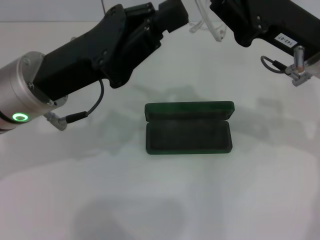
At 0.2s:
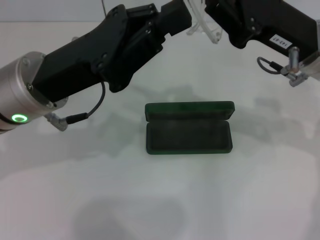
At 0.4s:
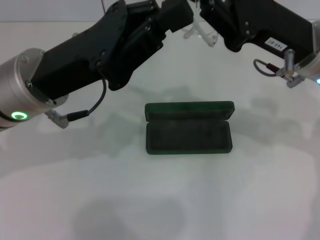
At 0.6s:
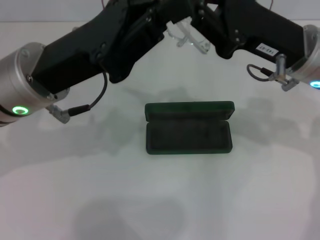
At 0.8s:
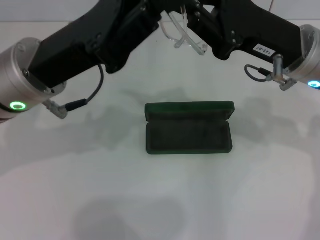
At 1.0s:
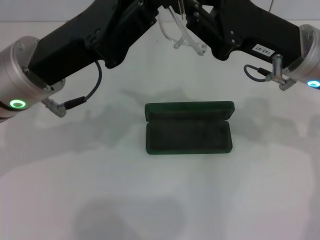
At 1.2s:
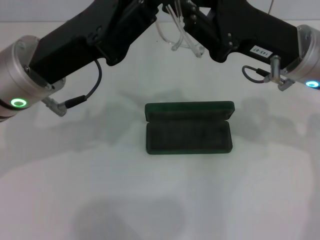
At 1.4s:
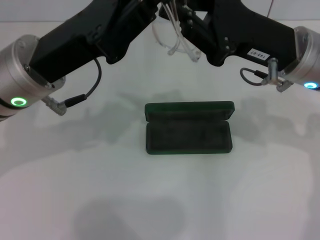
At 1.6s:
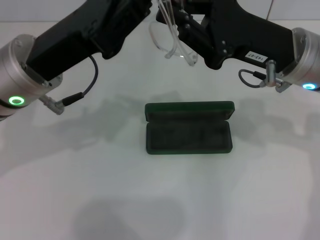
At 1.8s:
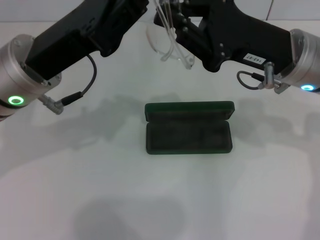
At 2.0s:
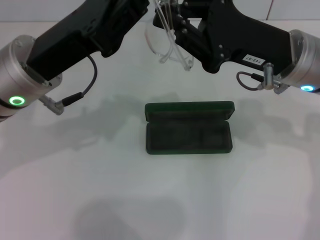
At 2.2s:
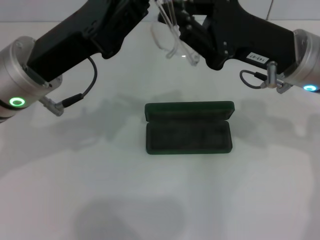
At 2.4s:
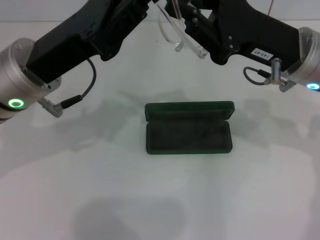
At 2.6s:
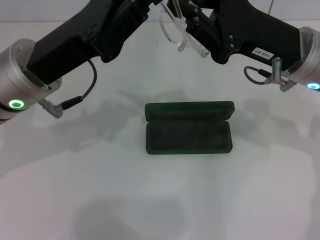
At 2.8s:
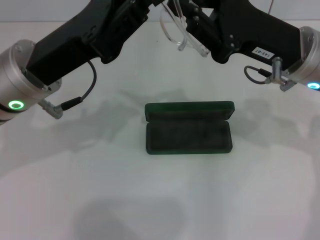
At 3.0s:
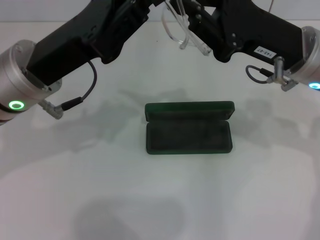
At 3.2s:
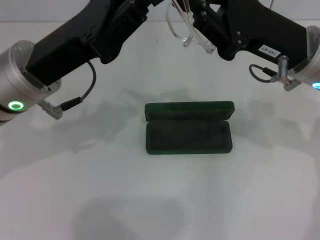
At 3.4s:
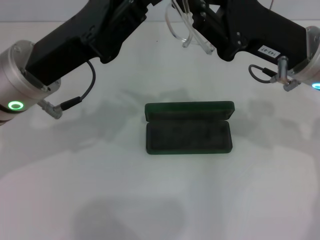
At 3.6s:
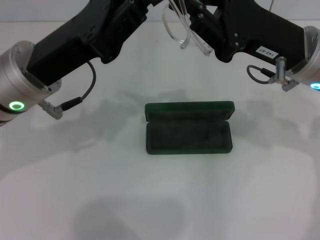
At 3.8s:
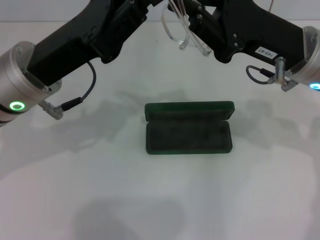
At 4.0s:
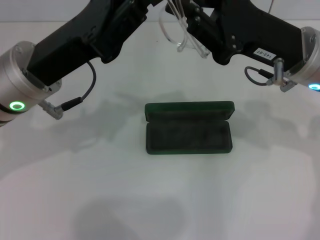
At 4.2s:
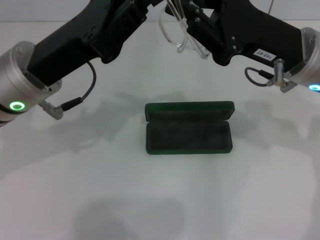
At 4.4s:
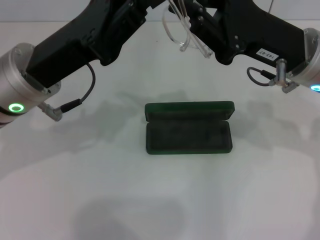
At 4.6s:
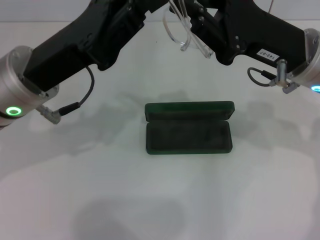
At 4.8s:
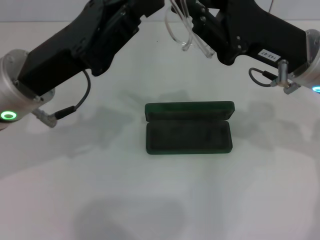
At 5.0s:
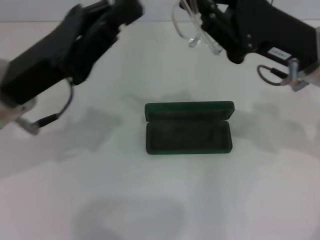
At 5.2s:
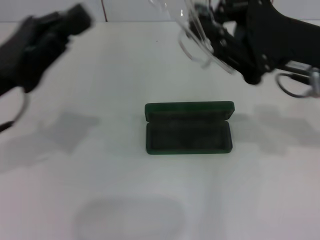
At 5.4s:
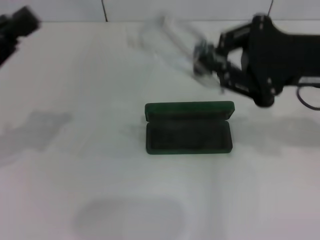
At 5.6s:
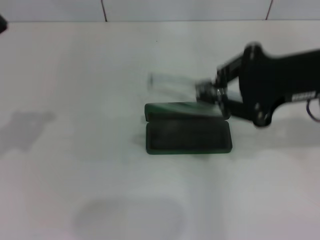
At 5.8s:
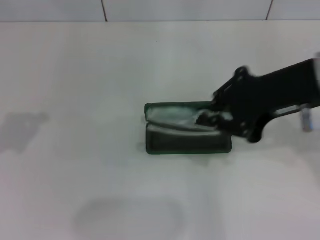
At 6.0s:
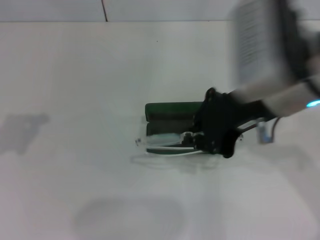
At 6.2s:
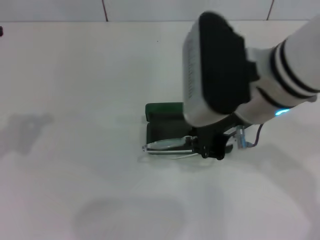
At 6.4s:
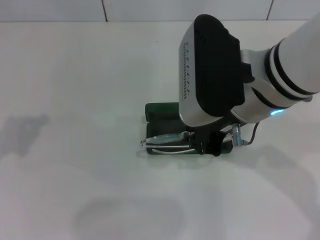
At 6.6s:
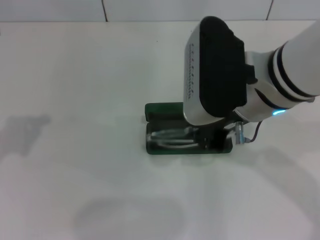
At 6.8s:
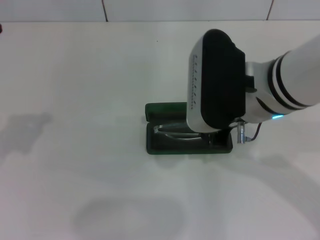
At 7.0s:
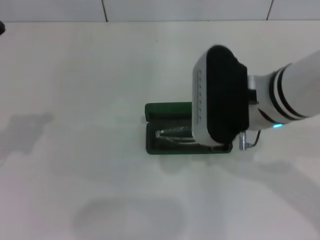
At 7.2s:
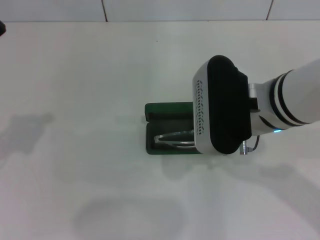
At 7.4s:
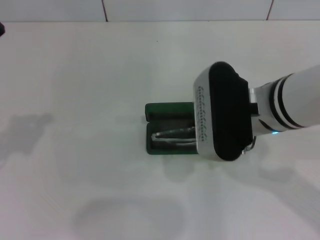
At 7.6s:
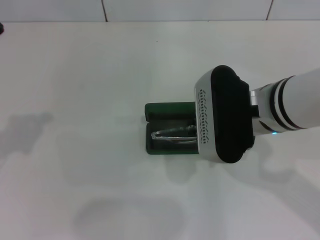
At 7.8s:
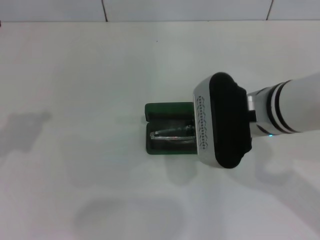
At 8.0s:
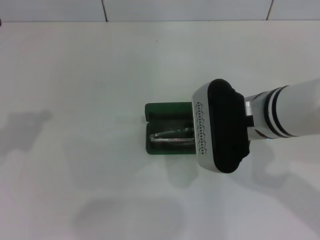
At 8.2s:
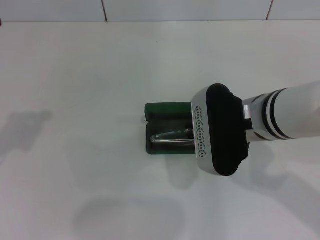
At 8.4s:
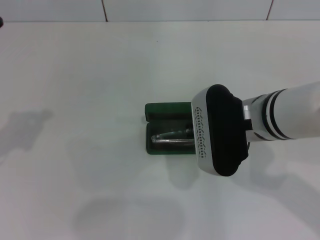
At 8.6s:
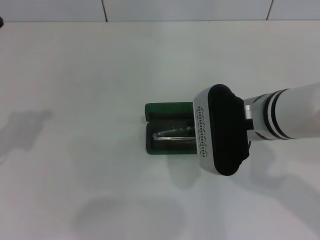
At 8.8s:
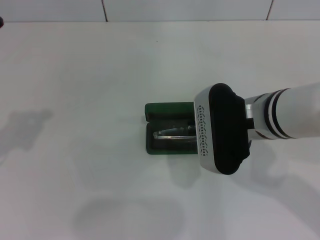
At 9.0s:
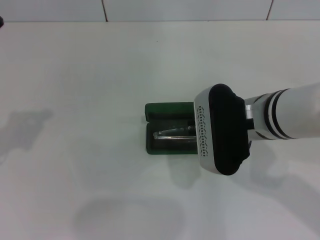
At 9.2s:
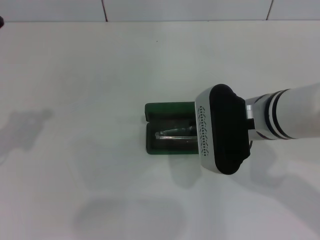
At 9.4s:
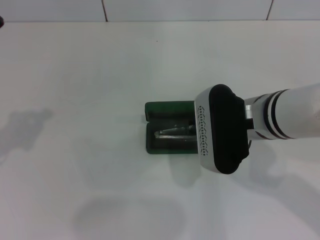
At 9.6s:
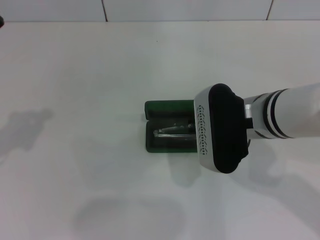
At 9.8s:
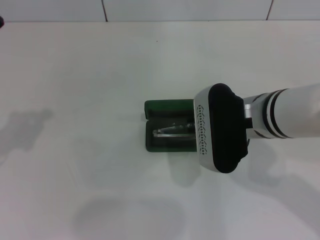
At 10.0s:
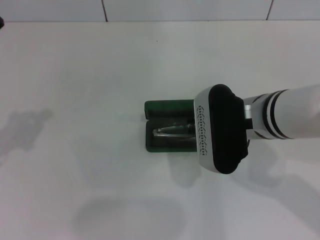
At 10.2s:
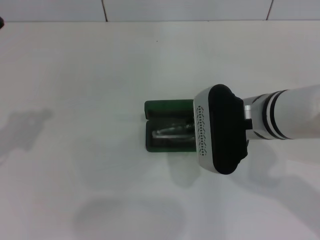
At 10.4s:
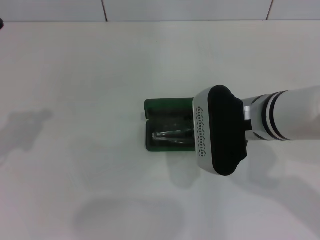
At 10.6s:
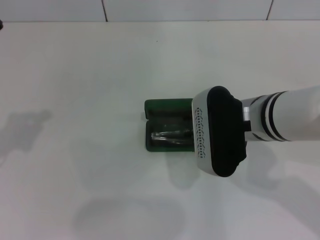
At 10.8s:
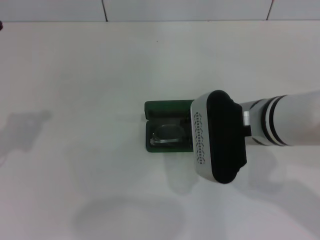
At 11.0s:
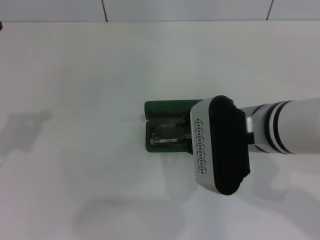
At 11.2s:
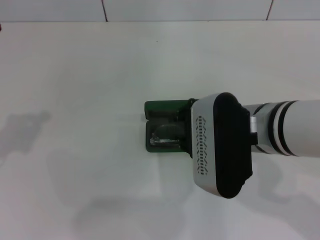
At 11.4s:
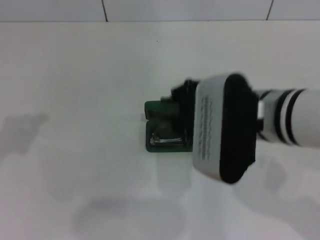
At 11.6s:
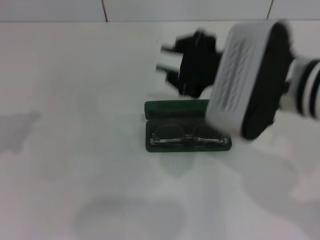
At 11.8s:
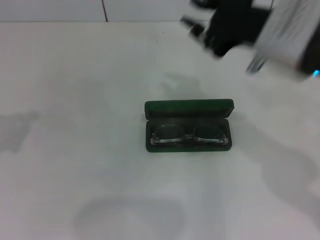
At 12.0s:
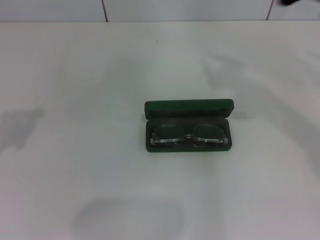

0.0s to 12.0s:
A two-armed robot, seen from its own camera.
Step, 0.0s to 4.0s: Fold the frame with your left hand.
Step, 4.2s to 11.0s: Put the glasses into the case with your right hand.
1.6s to 4.4s: Both grippers stay about where they are.
4.4s to 6.0s: The right gripper travels upward and to the left by roughly 10 cm. The left gripper moves to the left, roughly 15 cm.
6.0s to 7.6s: The right gripper is displaced downward by approximately 5 cm.
7.6s to 9.0s: The grippers move only a little.
9.0s to 10.4s: Both grippers stay put.
10.4s to 12.0s: The right gripper is displaced upward and to the right by about 20 cm.

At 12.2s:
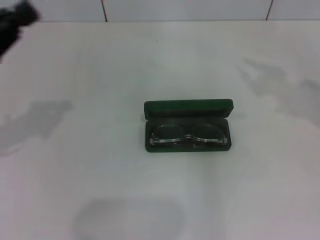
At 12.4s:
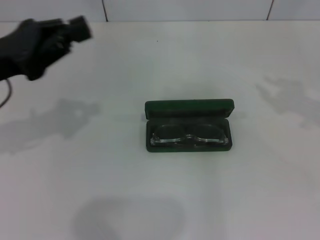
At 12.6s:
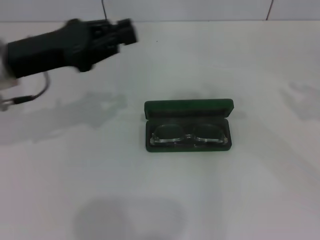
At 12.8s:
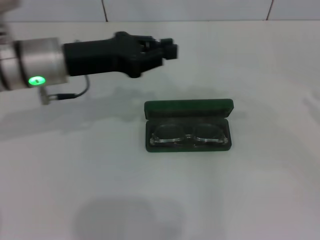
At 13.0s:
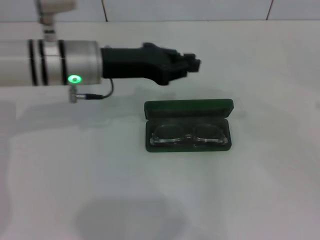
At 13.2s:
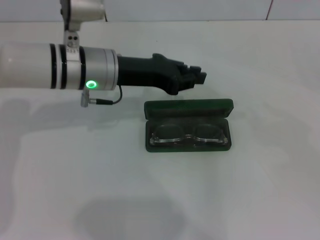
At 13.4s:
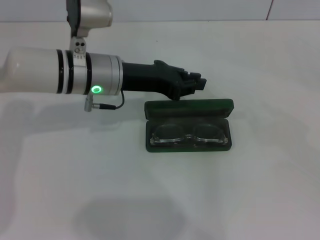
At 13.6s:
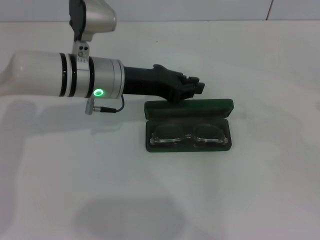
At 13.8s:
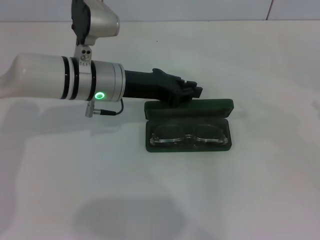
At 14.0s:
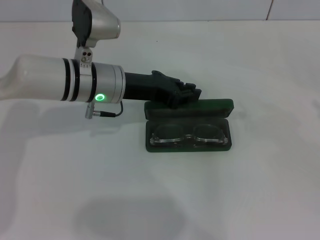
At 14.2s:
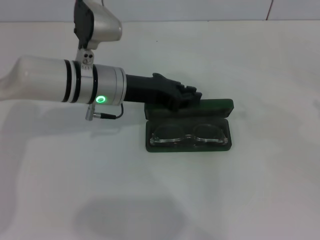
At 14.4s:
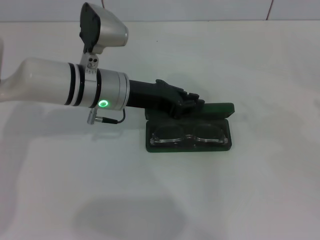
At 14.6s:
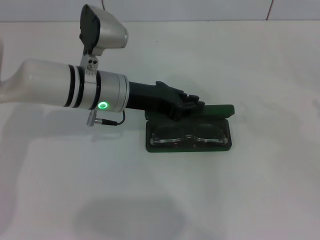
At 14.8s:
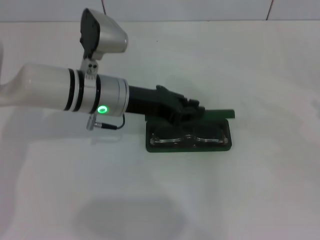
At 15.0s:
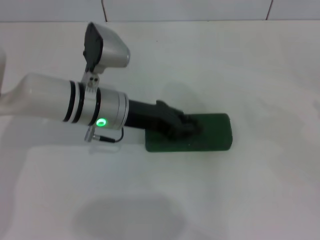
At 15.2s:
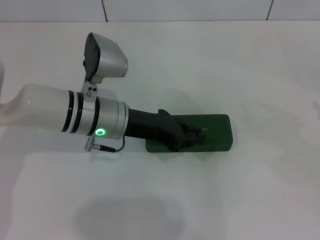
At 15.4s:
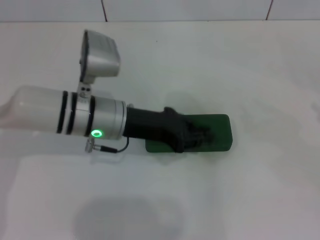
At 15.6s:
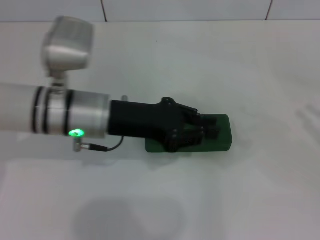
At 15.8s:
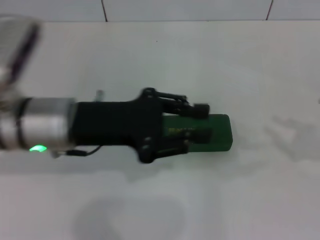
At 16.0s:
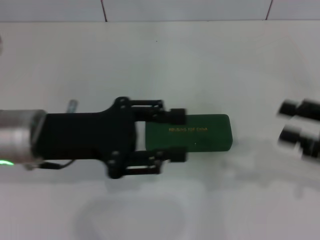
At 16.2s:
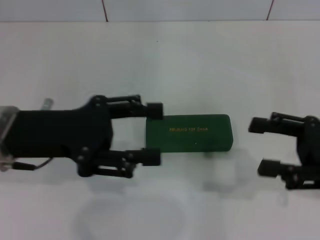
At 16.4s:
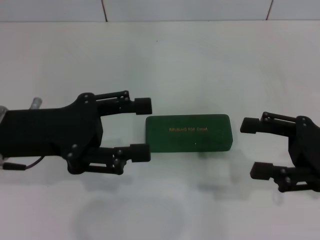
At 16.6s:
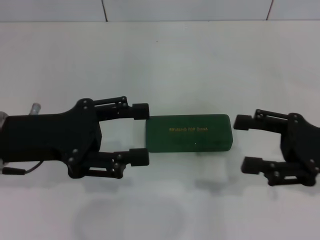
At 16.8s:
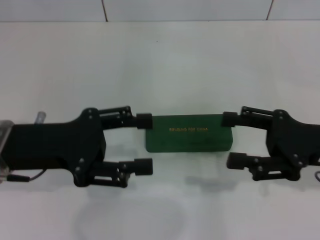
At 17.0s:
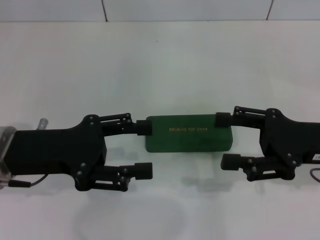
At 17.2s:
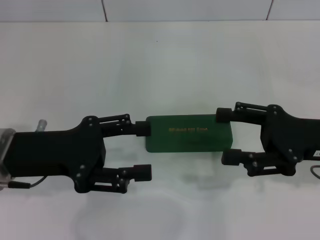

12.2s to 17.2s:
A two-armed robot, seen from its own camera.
Step, 12.2s to 15.0s: Close the glasses case with your left hand.
12.2s to 13.8s: The left gripper travels to the right and forward by some 20 cm. The right gripper is displaced downward, to the right and backward by roughly 20 cm.
13.8s to 15.6s: The left gripper is displaced backward by some 5 cm.
15.6s to 17.2s: The left gripper moves to the left and backward, approximately 10 cm, and opens. Meanwhile the right gripper shifts approximately 15 cm to the left, and opens.

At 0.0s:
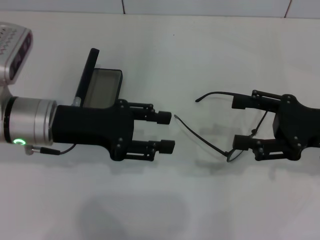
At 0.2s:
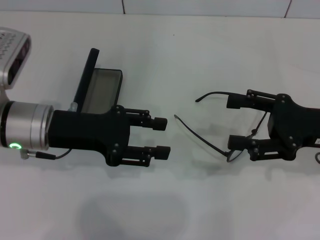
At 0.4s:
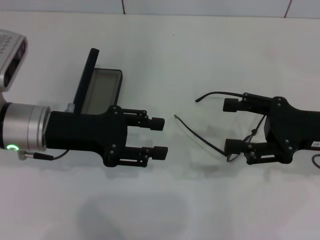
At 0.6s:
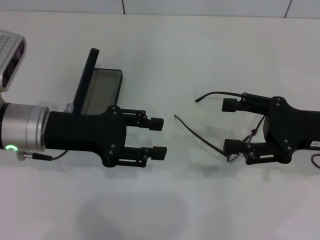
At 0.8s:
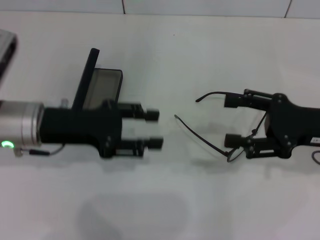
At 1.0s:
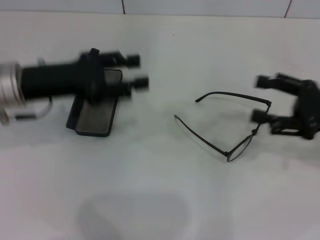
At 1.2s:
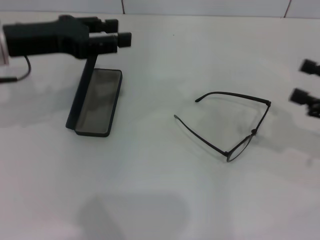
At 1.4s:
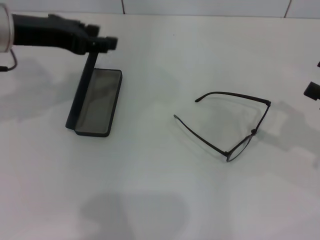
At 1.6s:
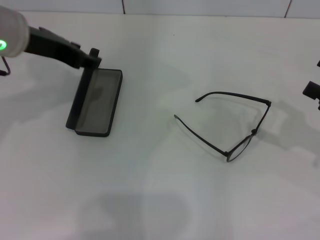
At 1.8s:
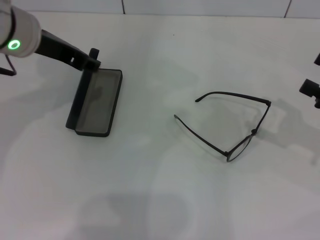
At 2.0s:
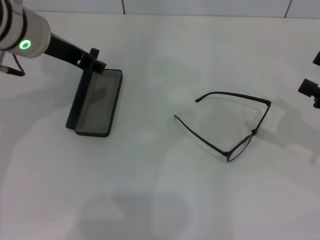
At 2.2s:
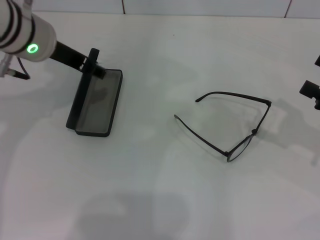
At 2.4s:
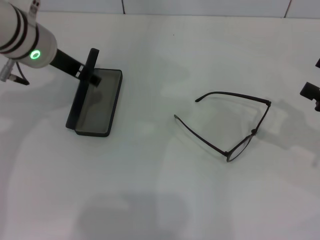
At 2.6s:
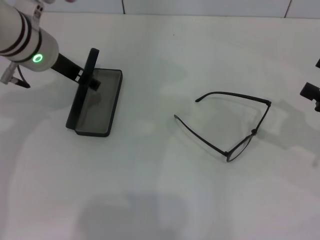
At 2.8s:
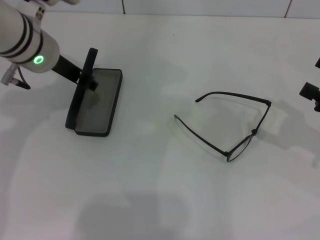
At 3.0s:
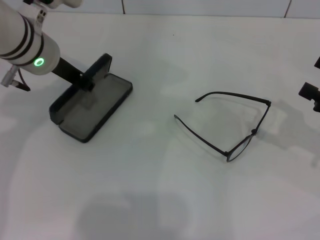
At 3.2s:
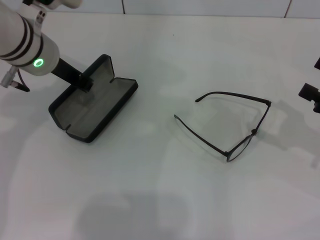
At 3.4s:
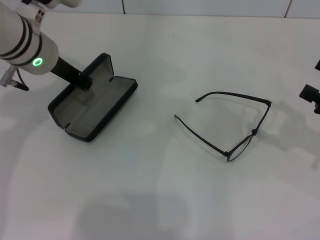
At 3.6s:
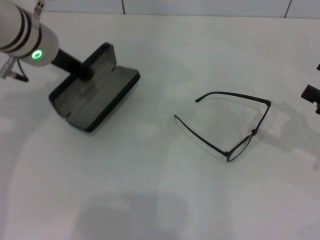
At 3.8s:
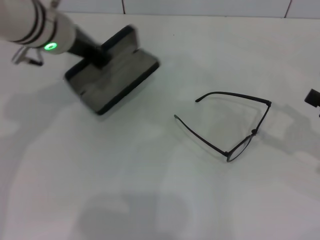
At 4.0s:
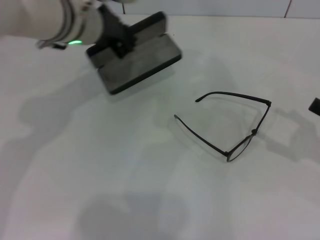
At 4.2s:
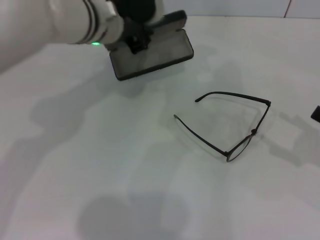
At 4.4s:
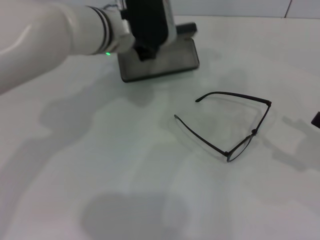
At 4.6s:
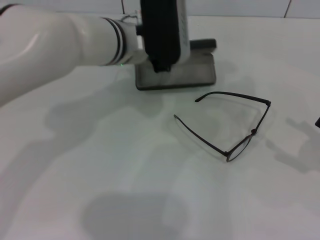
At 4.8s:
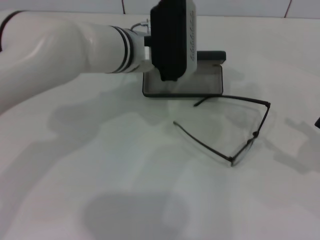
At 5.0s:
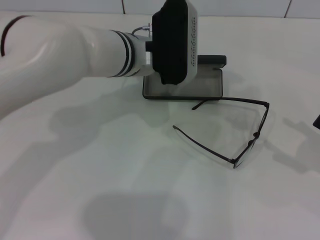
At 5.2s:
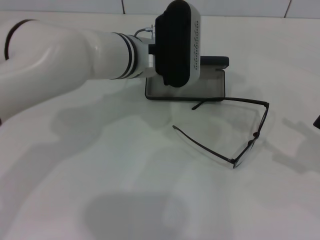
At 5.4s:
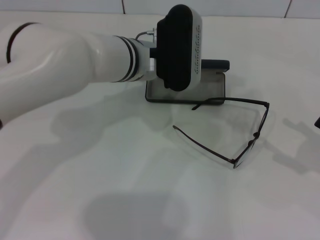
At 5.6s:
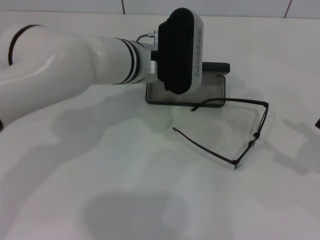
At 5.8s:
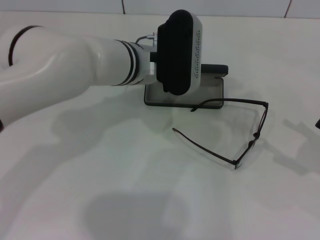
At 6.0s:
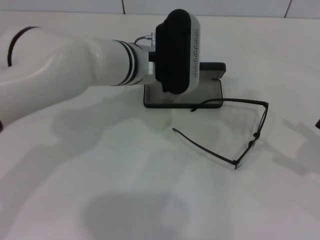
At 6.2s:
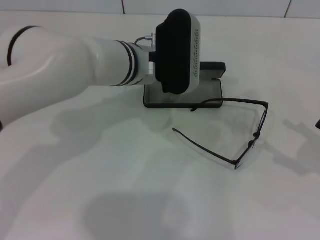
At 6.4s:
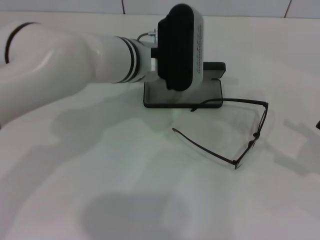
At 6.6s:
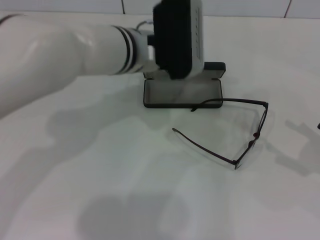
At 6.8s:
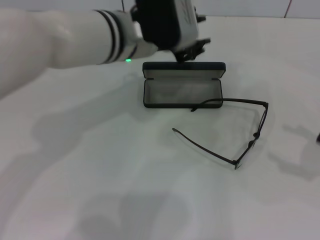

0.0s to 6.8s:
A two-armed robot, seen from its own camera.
Step, 0.0s to 3.2s: Grab the glasses case with your left hand.
Step, 3.4s to 6.2s: Place the glasses case in the center of the table with your left hand.
0.0s to 1.4s: The right gripper moves to the right, roughly 10 cm; the left gripper heads upward and forward, covering about 10 cm.
1.4s to 2.8s: The left gripper moves to the right, some 5 cm.
2.8s to 4.0s: The left gripper heads to the right, covering roughly 5 cm, and closes up.
4.0s to 5.4s: The left gripper heads to the right and downward, covering roughly 10 cm.
5.4s to 6.8s: The left gripper is displaced upward by approximately 5 cm.
